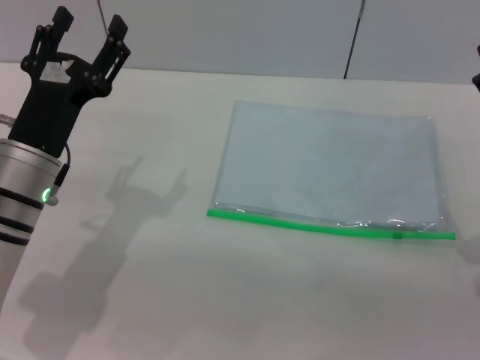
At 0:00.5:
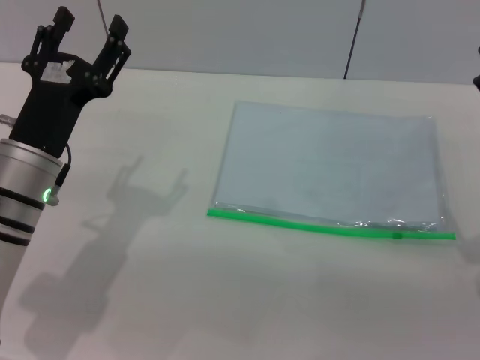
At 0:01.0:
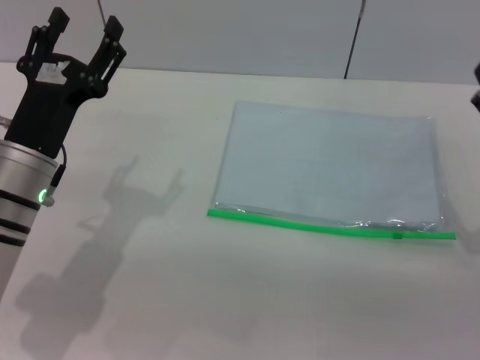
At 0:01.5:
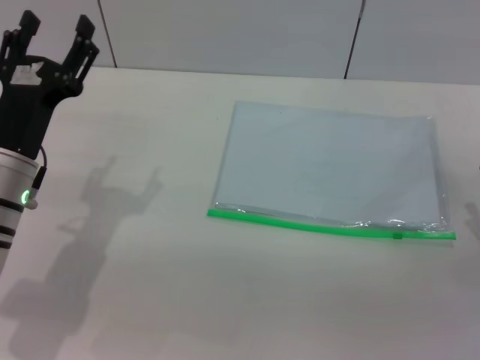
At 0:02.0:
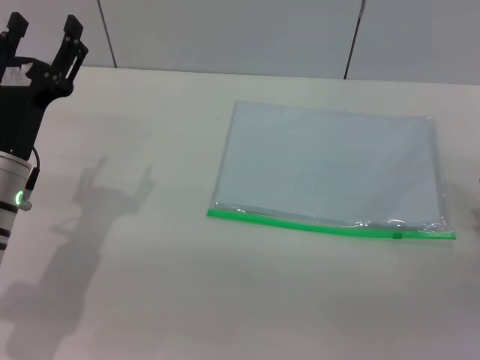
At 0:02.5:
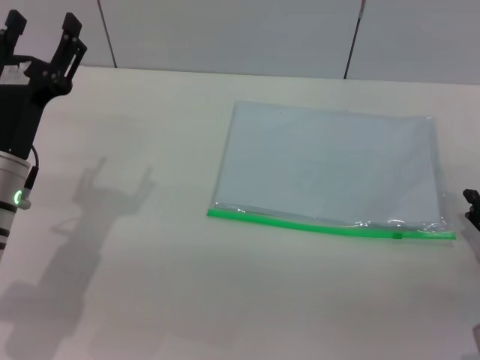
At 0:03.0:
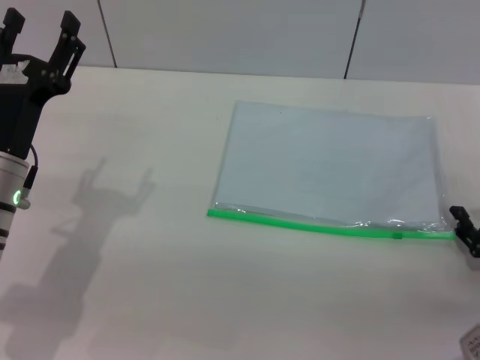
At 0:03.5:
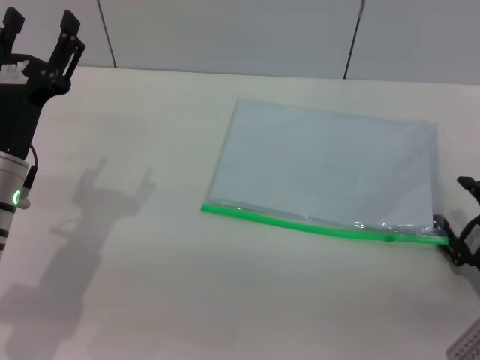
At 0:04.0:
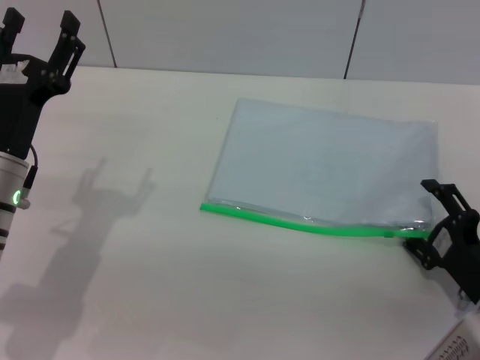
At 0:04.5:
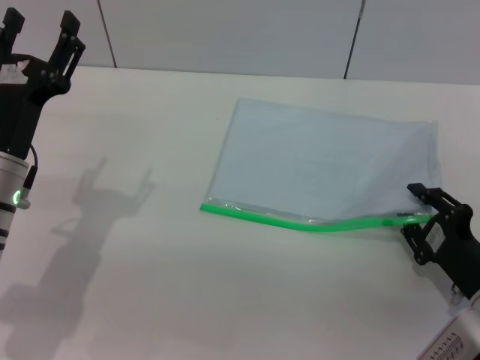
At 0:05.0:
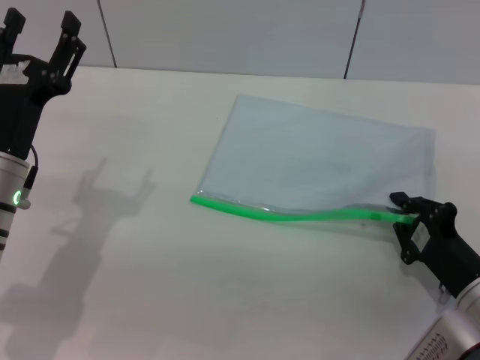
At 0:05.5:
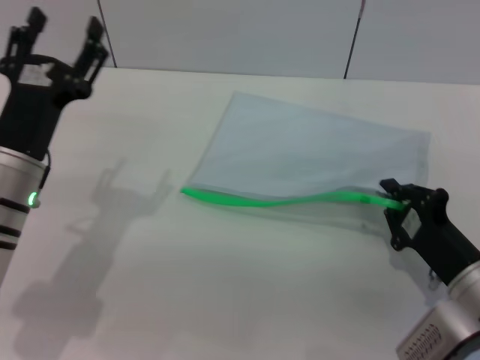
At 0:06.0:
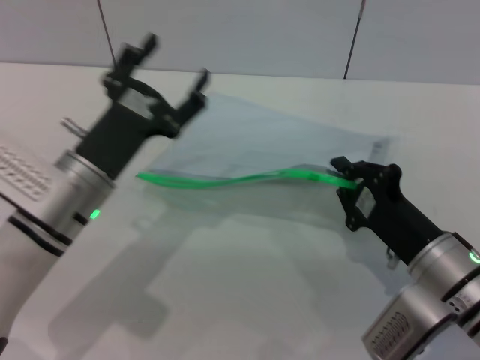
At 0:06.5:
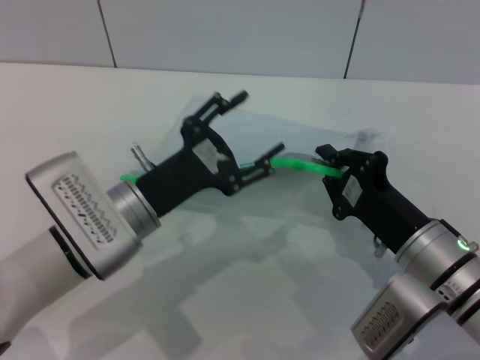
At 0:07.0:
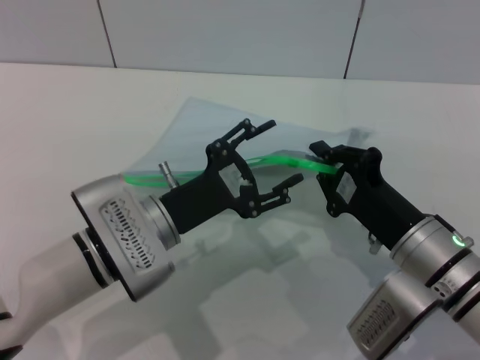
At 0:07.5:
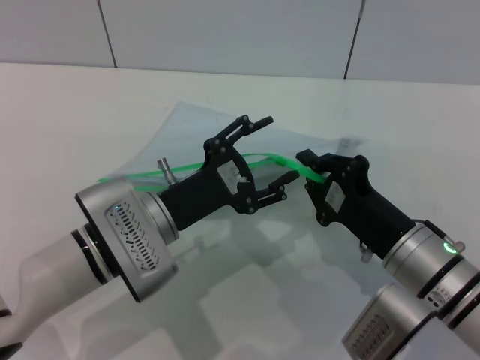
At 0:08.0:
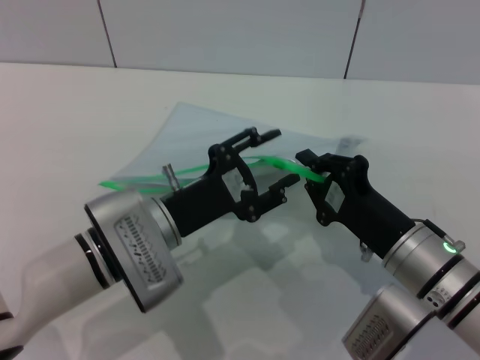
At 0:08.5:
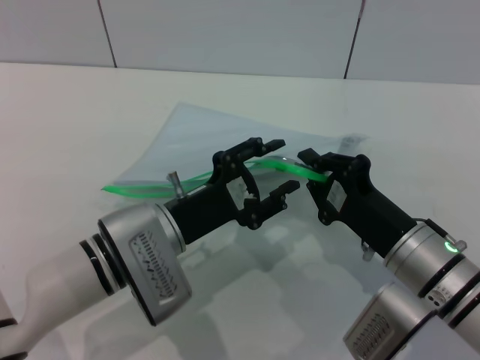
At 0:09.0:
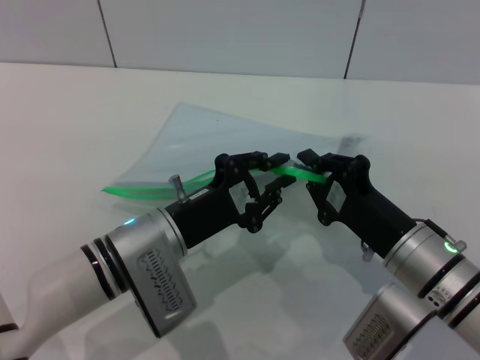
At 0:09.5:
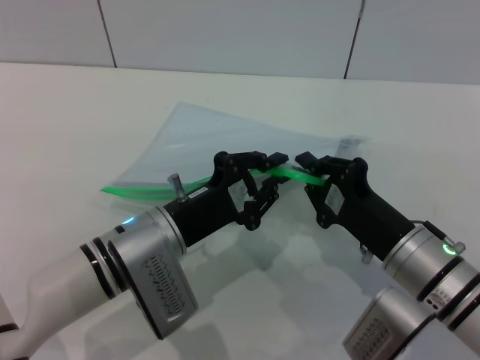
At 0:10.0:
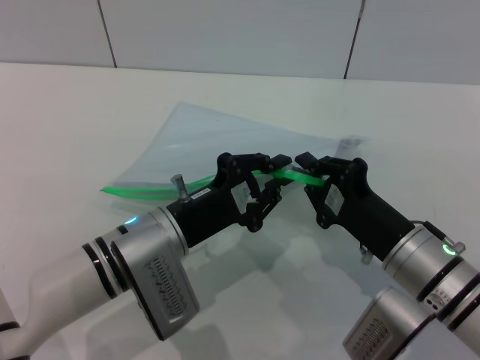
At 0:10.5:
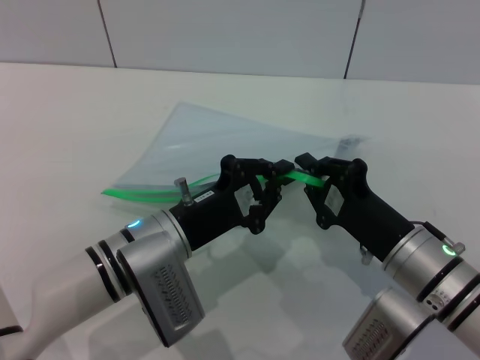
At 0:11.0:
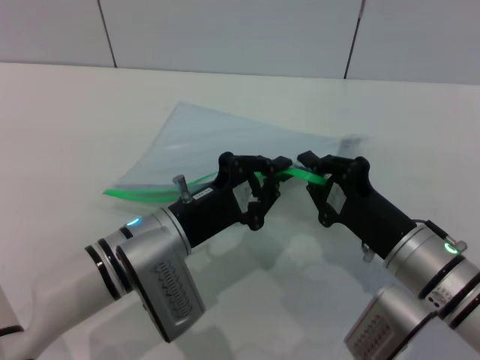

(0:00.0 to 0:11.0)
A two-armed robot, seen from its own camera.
Step, 0:00.0 - 0:06.5: Pick up the transparent plastic bag with the right gripper.
0:02.0 - 0:03.5: The grippers stay close to where they were, moving slightly.
0:03.5 - 0:05.5: The right gripper shifts about 5 cm to the left, and closes up.
0:05.5 - 0:07.5: The right gripper is displaced to the left by some 5 cm. Meanwhile the left gripper heads to the right, covering approximately 10 cm.
0:07.5 - 0:09.0: The left gripper closes up.
0:09.0 - 0:11.0: The left gripper closes.

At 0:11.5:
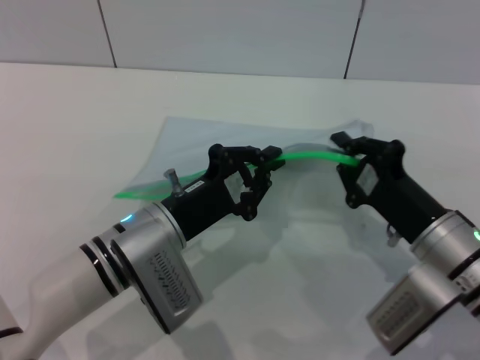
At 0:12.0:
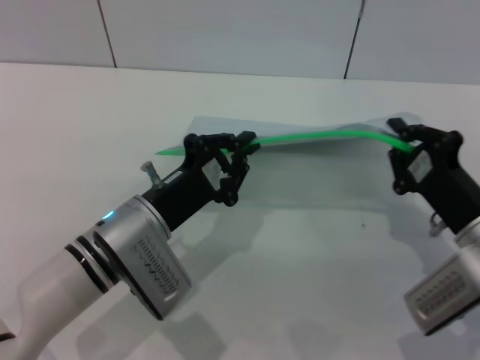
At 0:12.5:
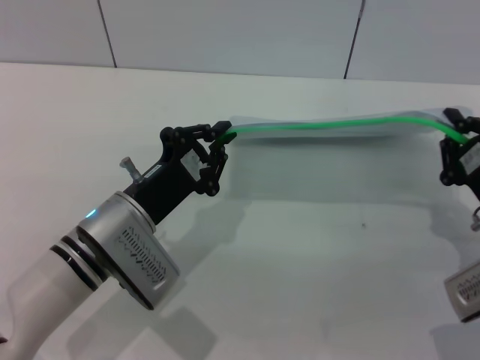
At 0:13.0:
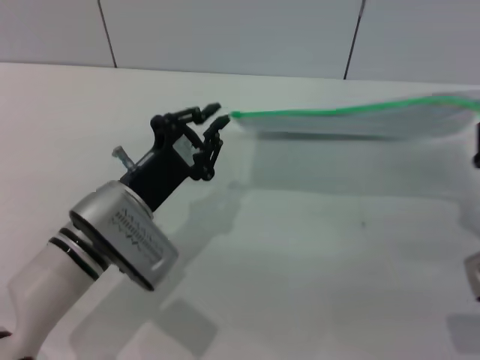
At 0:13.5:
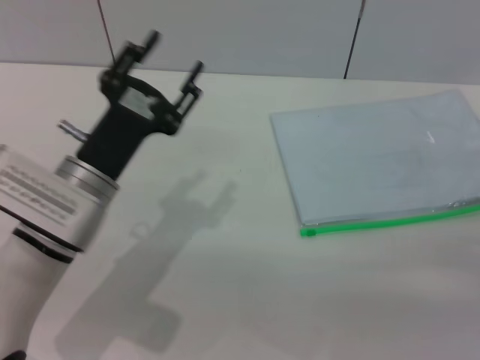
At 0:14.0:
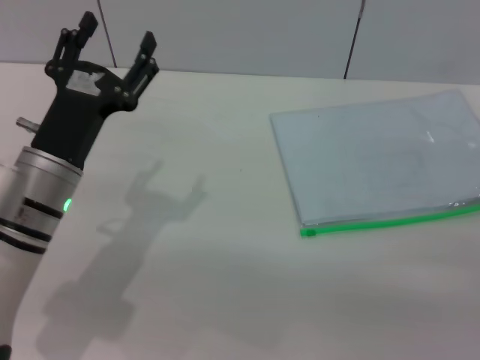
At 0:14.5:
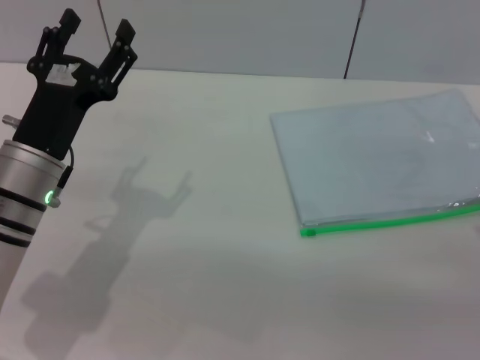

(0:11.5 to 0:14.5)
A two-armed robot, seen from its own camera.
Step, 0:13.0 - 0:13.5: Place the transparent plastic bag.
0:11.5 - 0:13.0: The right gripper travels to the right by about 10 cm.
0:13.0 - 0:14.5: The right gripper opens its fingers; the left gripper heads to the left, covering some 5 cm, and opens.

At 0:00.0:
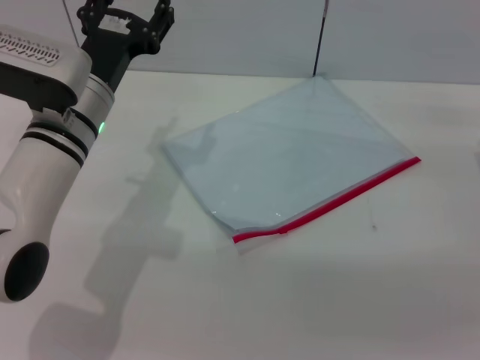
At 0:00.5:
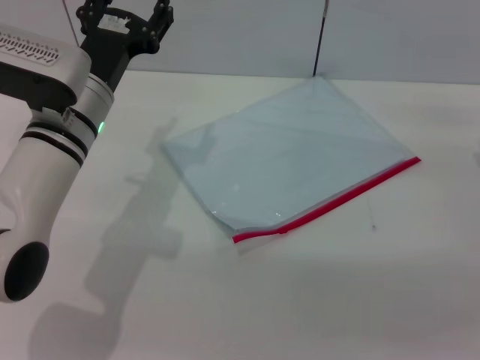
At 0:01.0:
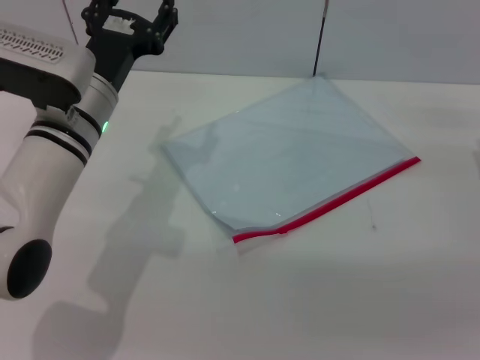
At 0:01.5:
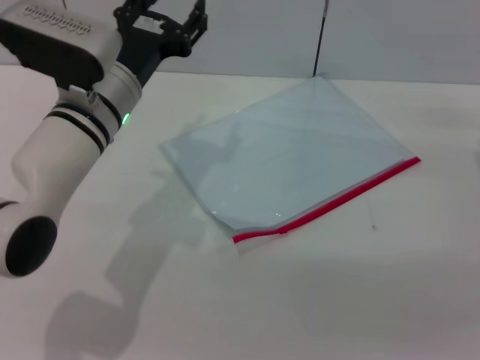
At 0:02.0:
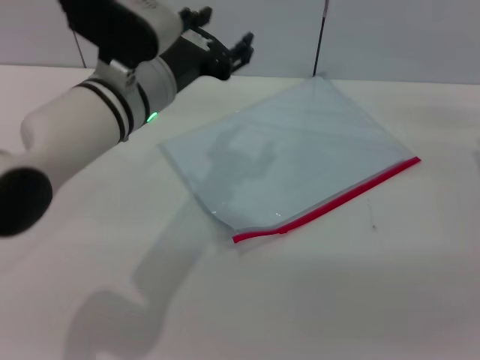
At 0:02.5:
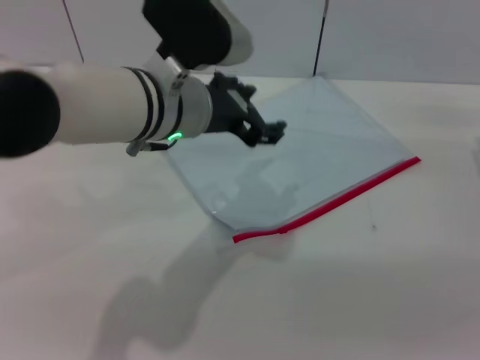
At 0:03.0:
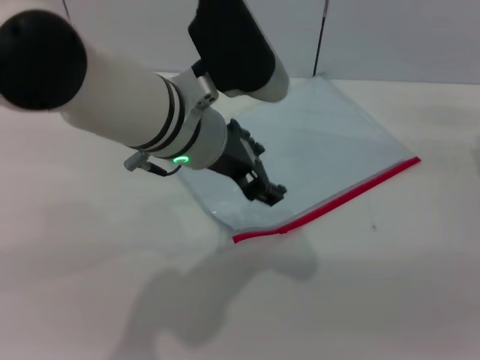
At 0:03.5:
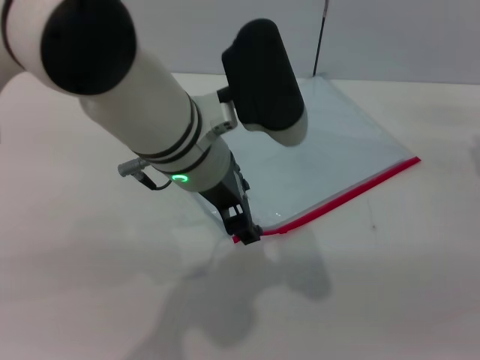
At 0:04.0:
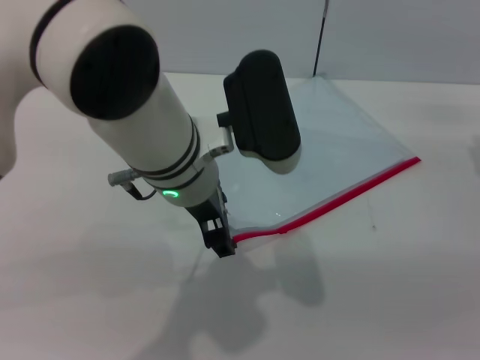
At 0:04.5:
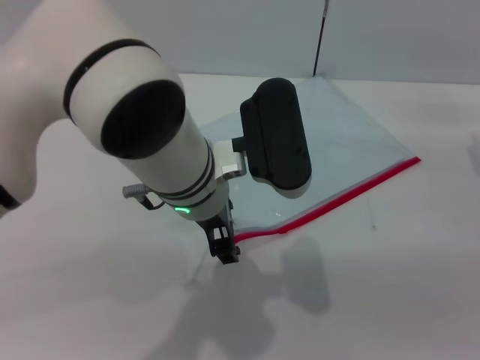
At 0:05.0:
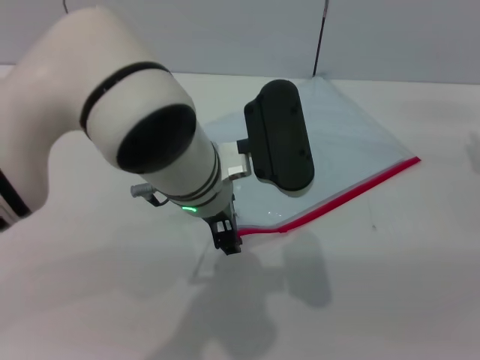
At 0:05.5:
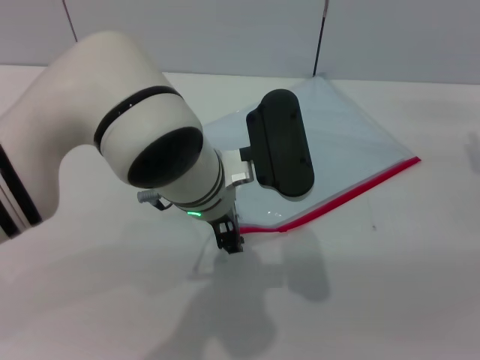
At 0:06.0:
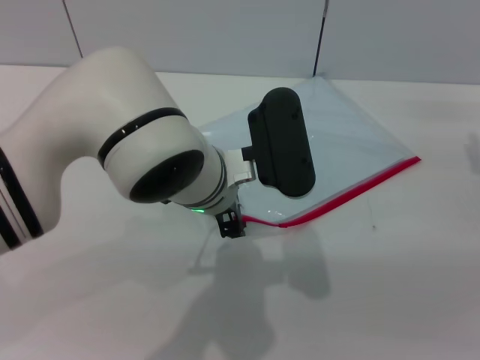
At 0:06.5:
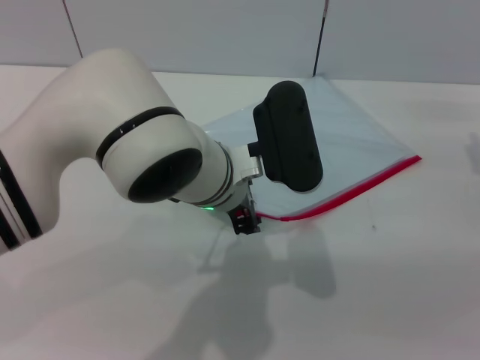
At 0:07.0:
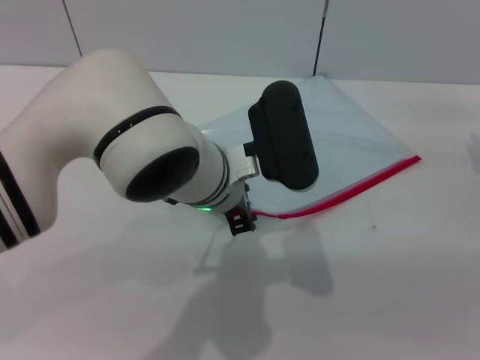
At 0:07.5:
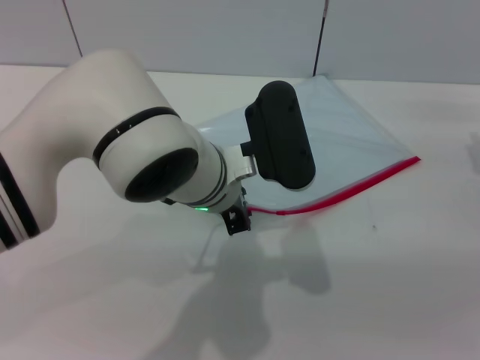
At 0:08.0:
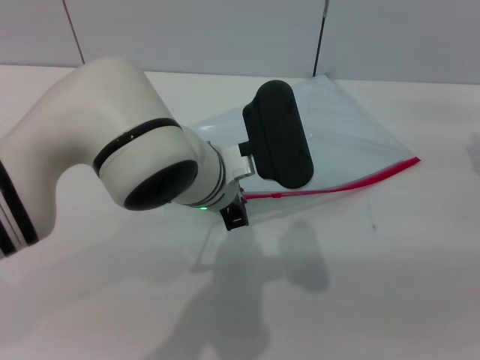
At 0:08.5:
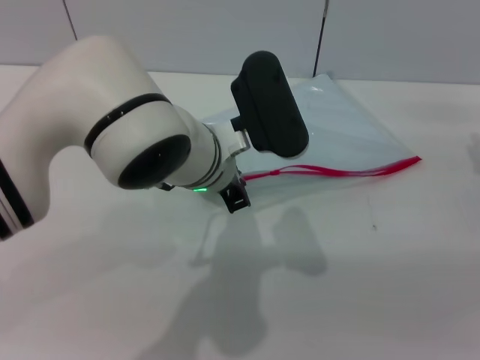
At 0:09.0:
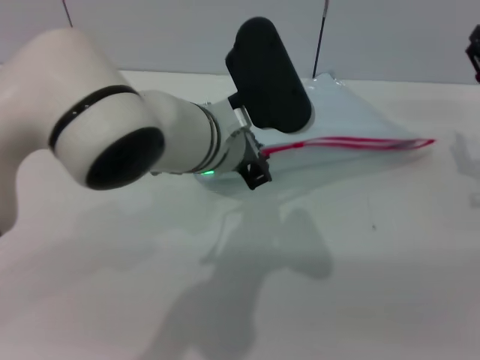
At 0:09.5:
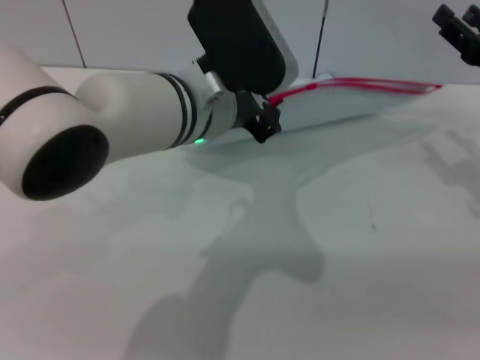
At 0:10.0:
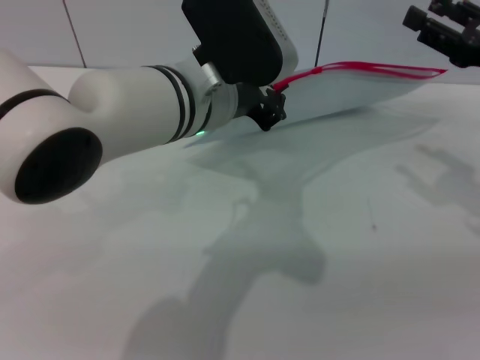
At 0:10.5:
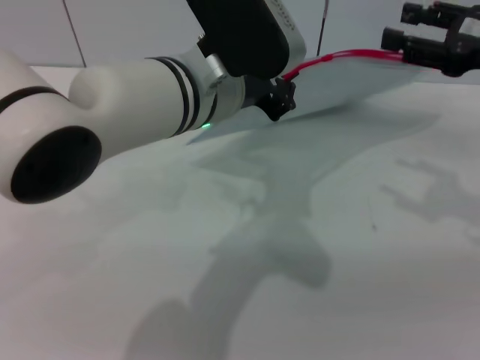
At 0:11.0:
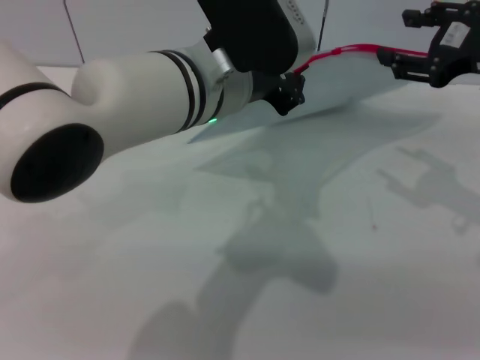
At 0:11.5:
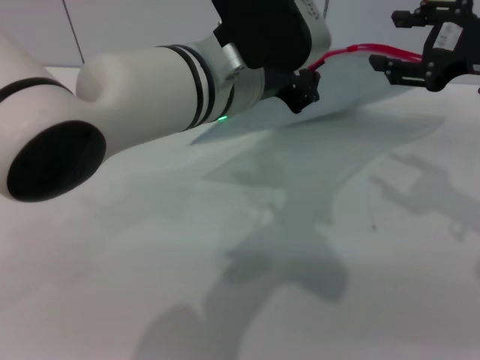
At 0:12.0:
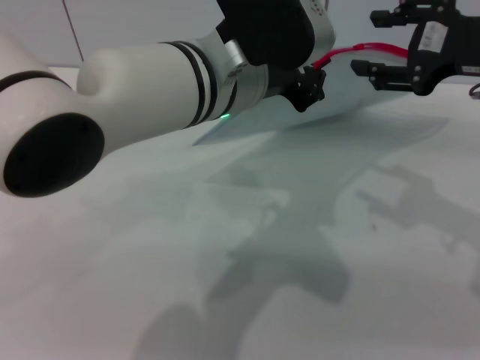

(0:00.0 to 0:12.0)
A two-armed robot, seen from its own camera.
Step, 0:00.0 - 0:09.5: Pick up the transparent plastic bag with the left gripper.
0:00.0 - 0:02.0: The left gripper travels to the right by about 5 cm.
0:02.0 - 0:04.0: The left gripper travels to the right by approximately 5 cm.
0:04.0 - 0:06.0: The left gripper changes place by about 5 cm.
0:06.0 - 0:08.0: The left gripper closes its fingers.
0:08.0 - 0:10.0: The two grippers go some 5 cm upward.
0:10.0 - 0:12.0: The right gripper heads upward and to the left, covering roughly 10 cm.
